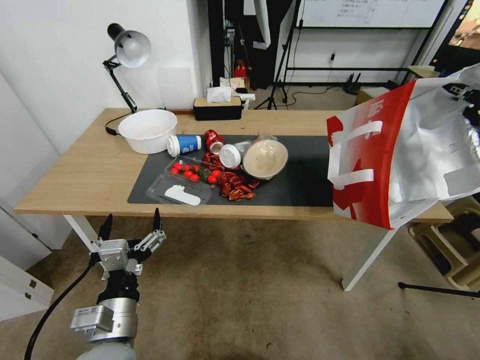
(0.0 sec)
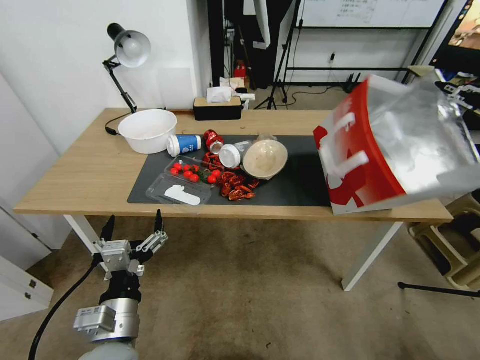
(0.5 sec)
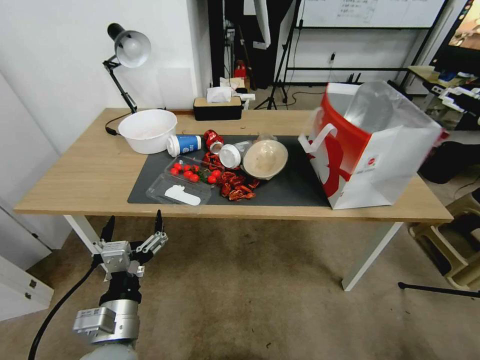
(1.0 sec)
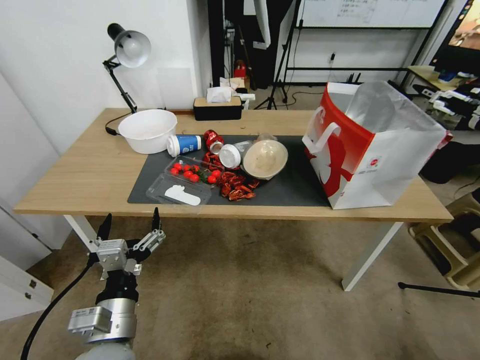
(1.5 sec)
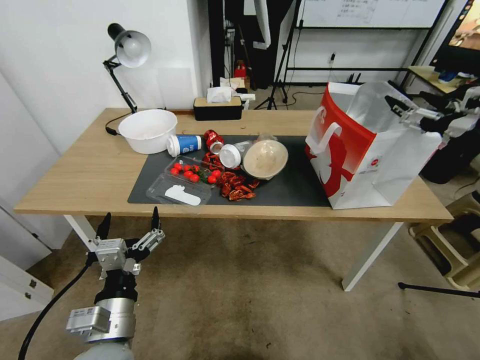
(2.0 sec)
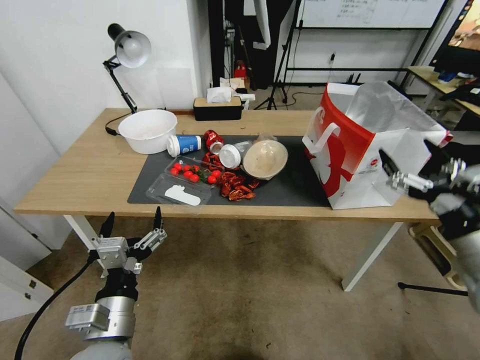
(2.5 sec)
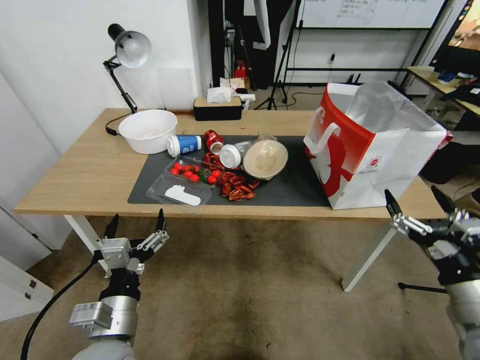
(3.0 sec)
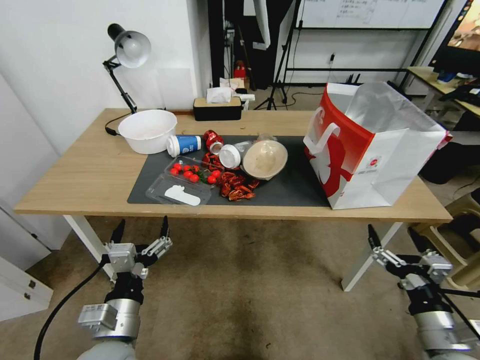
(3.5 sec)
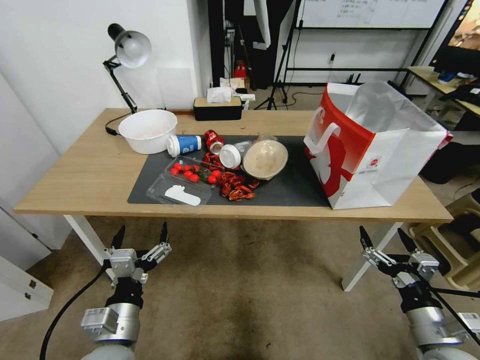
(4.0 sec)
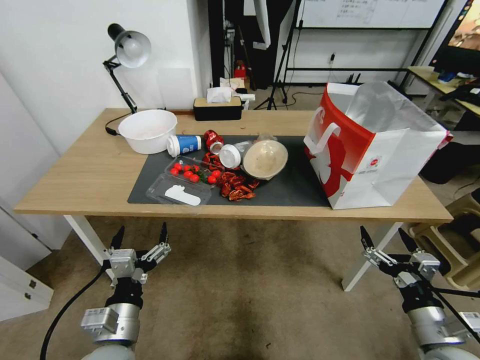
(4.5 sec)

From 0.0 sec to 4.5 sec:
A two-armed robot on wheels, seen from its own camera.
Task of the whole recording: Pick up the food delivery bag from the floor and place it on the table.
From 0.0 sec to 2.0 sec: The right gripper travels to the left and downward by roughly 10 cm, and opens up.
From 2.0 sec to 4.5 sec: The right gripper heads downward and backward, covering roughly 30 cm.

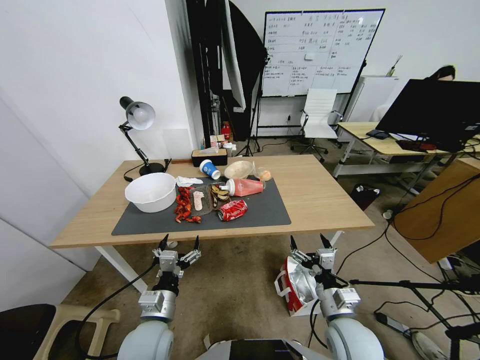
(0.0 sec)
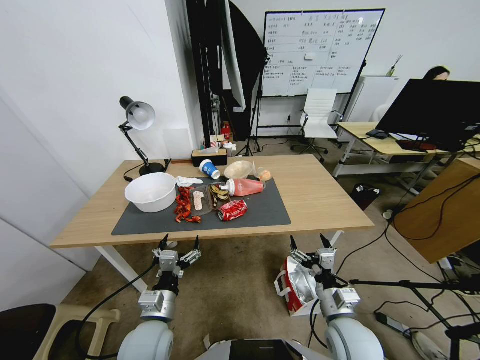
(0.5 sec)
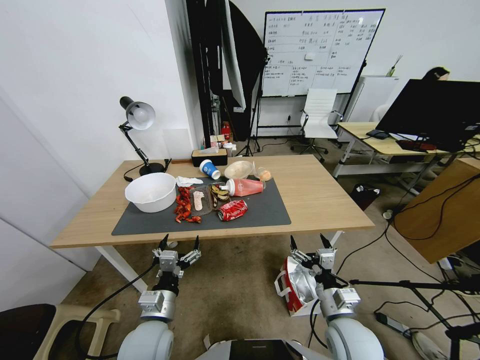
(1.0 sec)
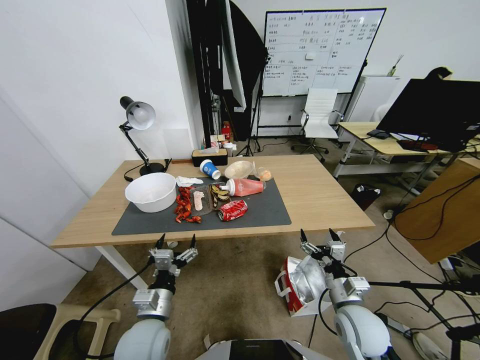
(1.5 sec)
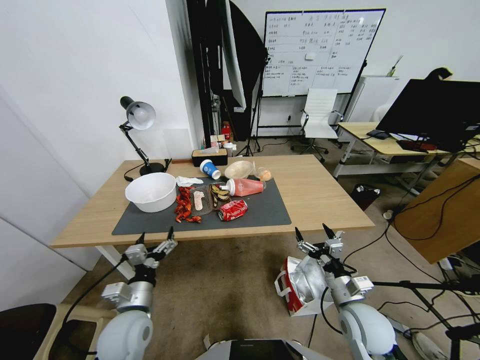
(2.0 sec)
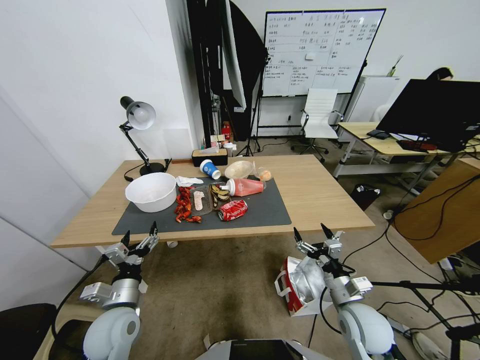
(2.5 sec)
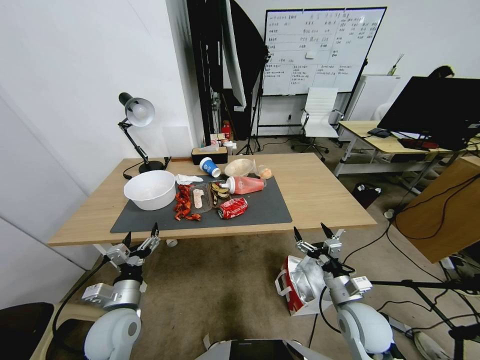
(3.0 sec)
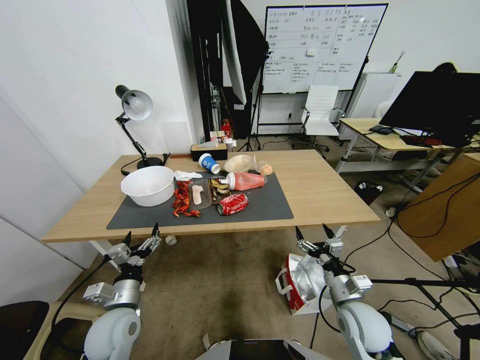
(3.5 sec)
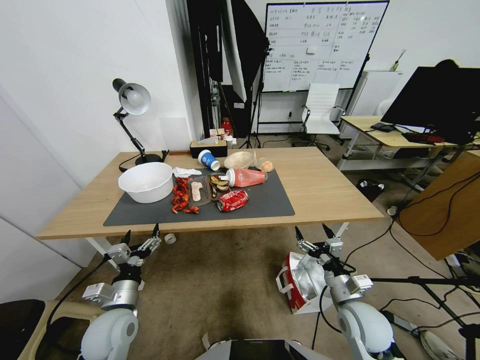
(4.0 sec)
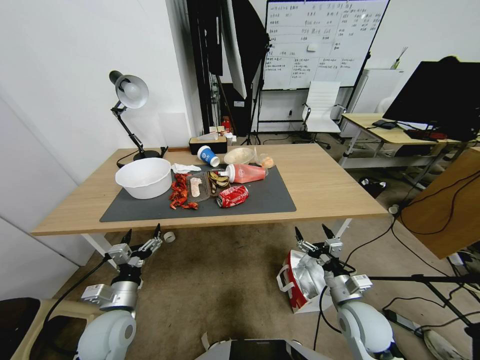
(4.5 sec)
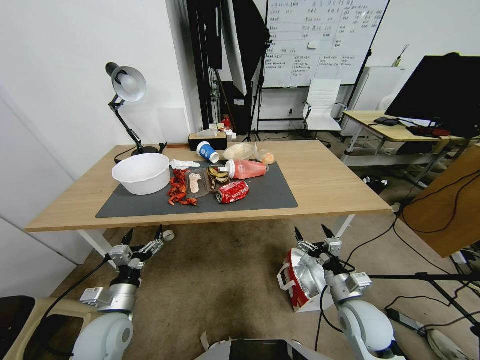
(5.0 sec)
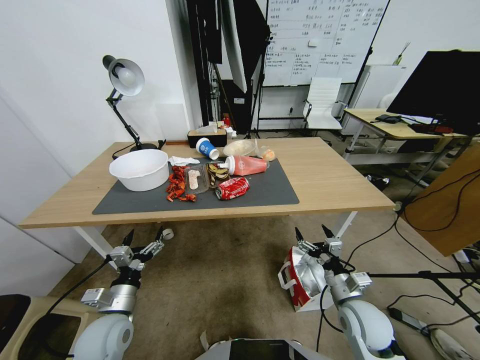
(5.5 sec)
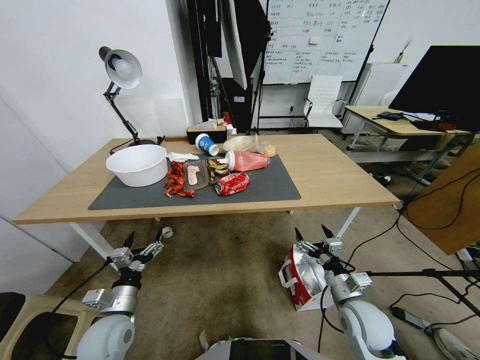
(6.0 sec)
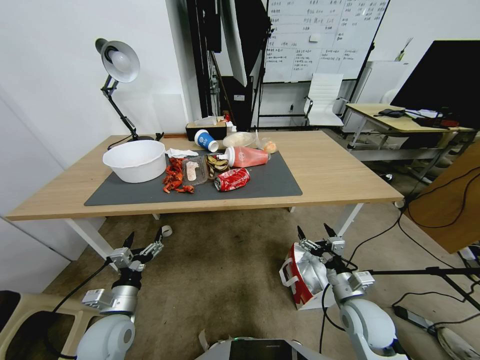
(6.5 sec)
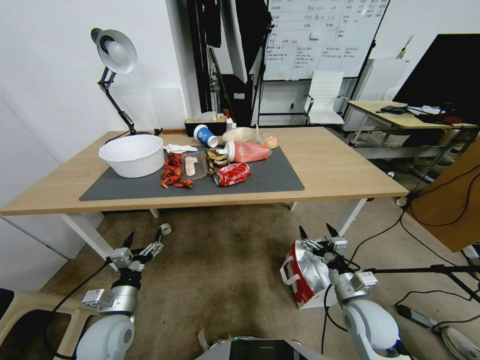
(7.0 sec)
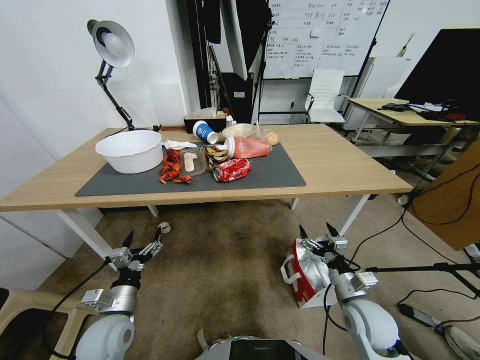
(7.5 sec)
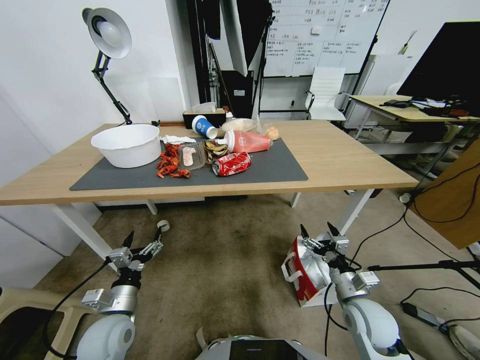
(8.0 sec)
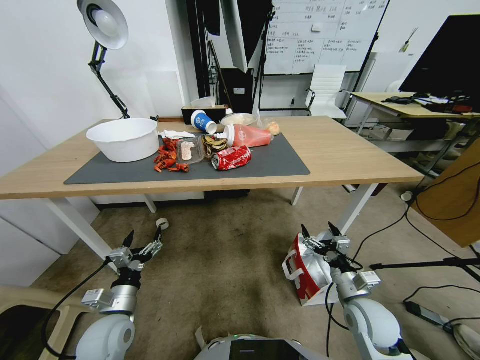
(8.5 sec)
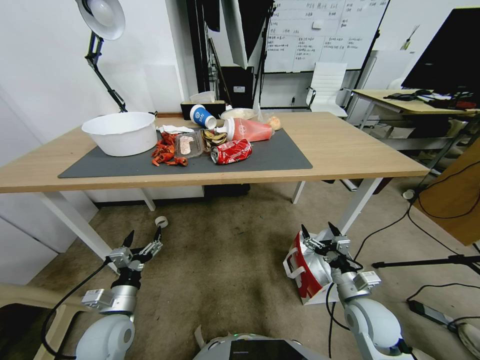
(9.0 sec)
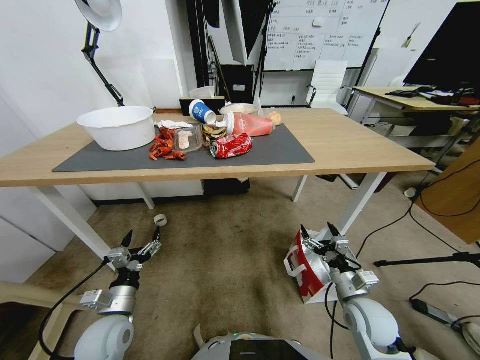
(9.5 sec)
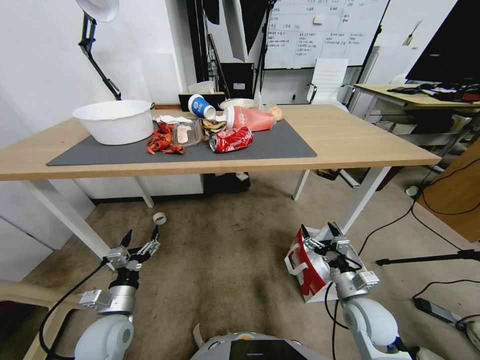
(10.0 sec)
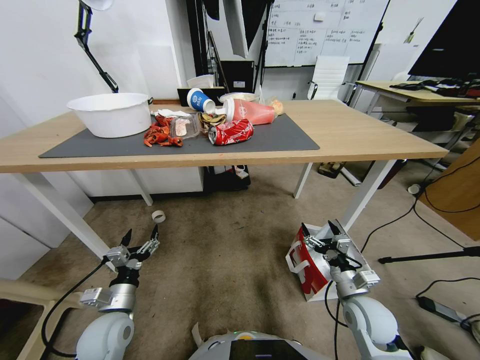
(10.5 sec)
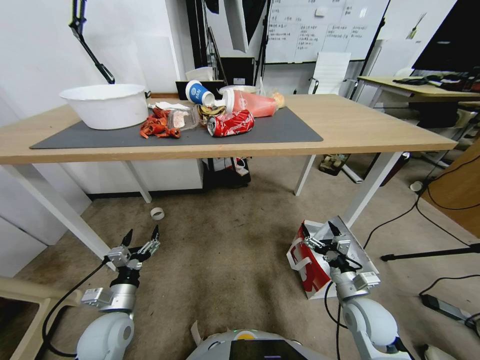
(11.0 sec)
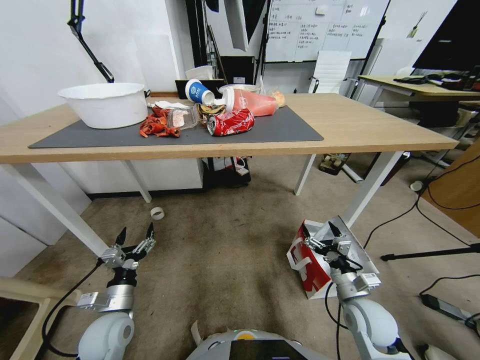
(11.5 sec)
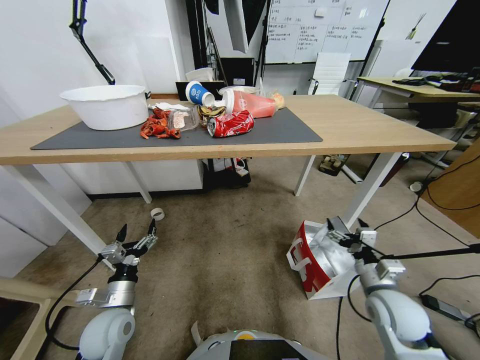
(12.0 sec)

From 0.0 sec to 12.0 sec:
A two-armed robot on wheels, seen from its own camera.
Task of the whole recording: Pick up the food delivery bag from the floor and place it on the table.
From 10.0 sec to 12.0 sec: The right gripper shifts approximately 5 cm to the right.

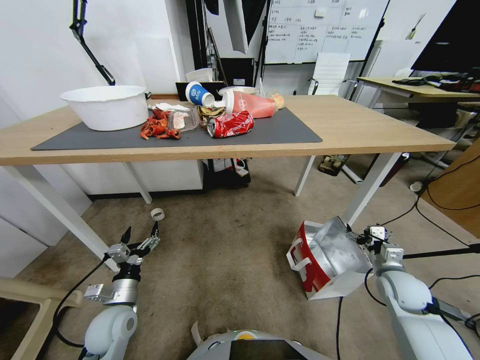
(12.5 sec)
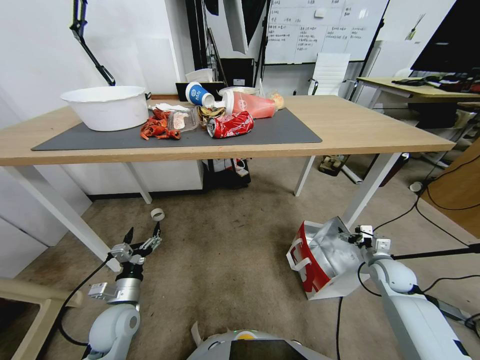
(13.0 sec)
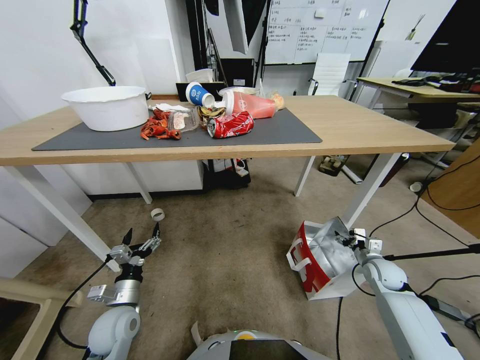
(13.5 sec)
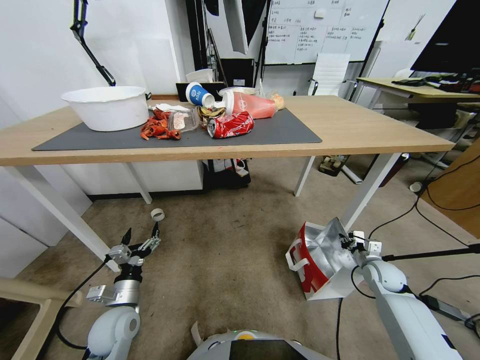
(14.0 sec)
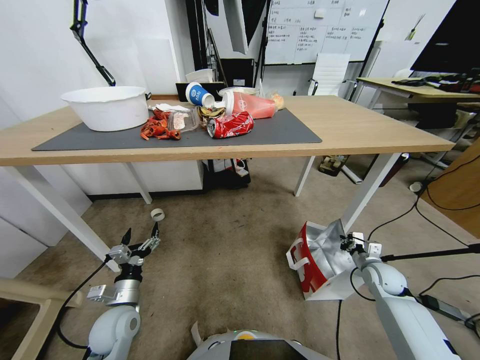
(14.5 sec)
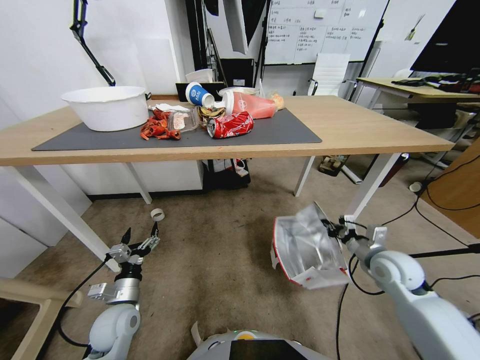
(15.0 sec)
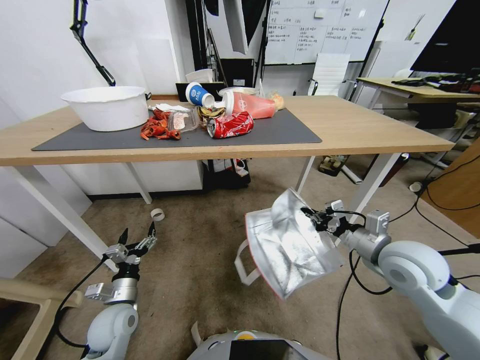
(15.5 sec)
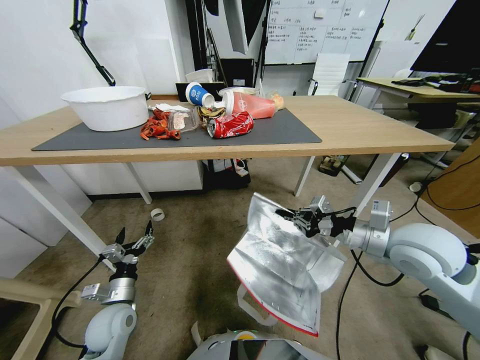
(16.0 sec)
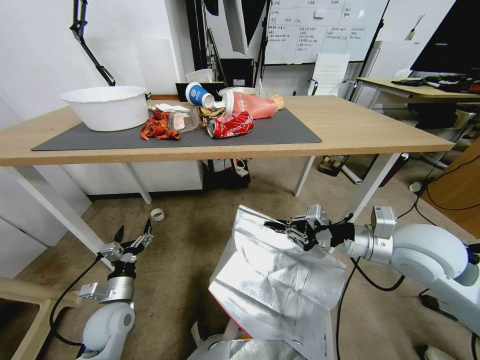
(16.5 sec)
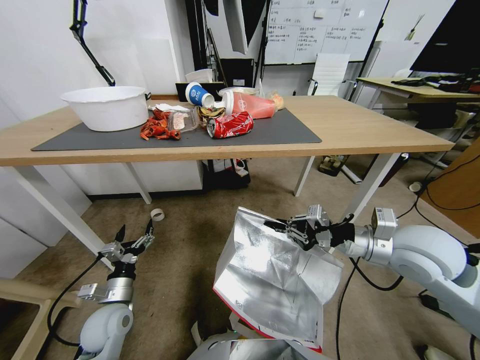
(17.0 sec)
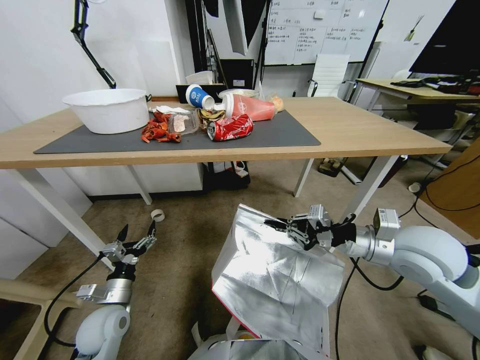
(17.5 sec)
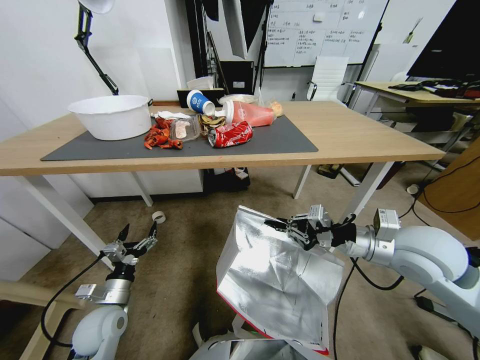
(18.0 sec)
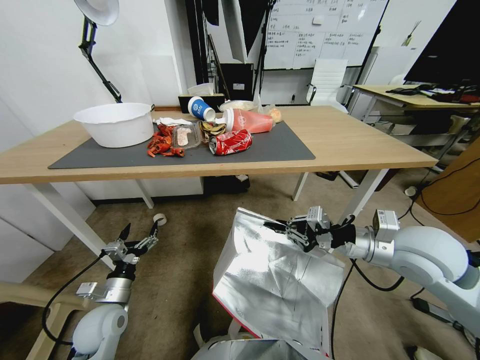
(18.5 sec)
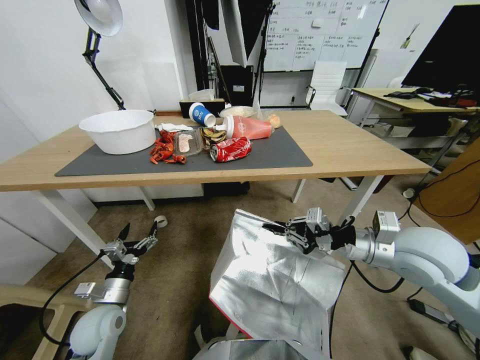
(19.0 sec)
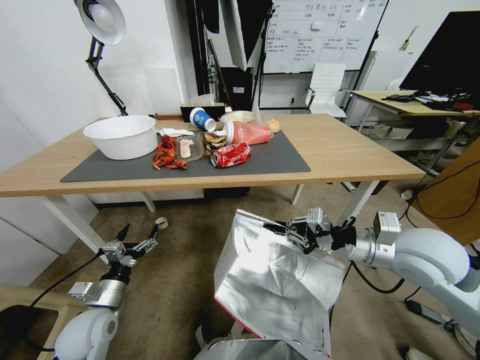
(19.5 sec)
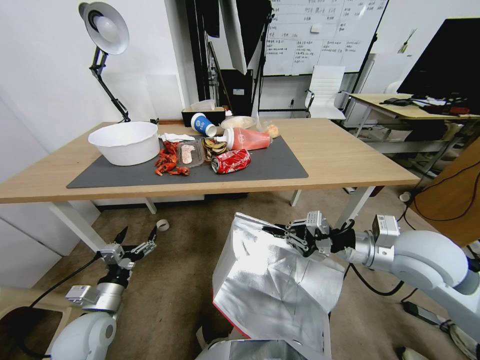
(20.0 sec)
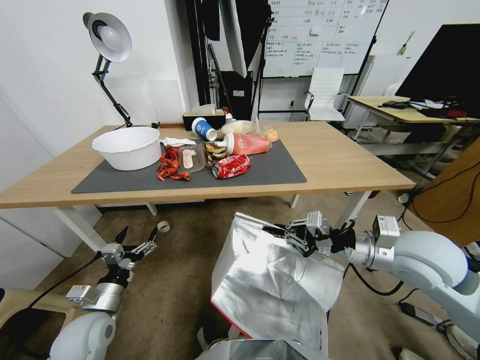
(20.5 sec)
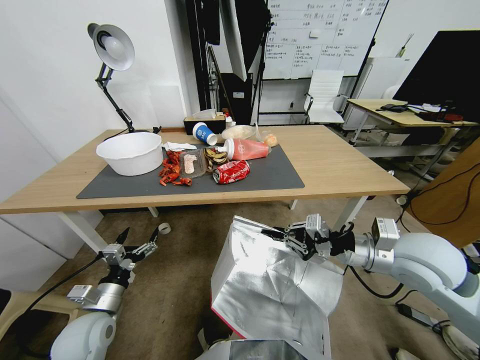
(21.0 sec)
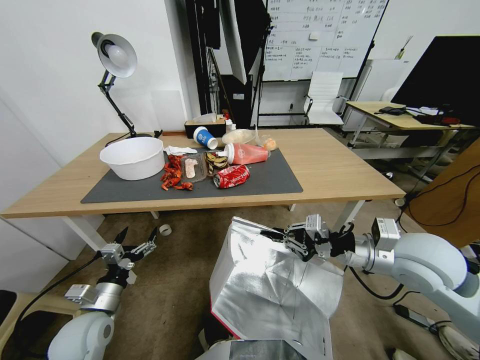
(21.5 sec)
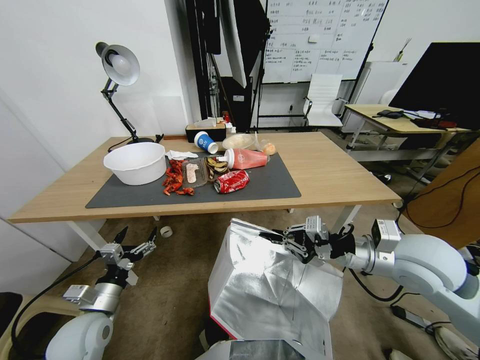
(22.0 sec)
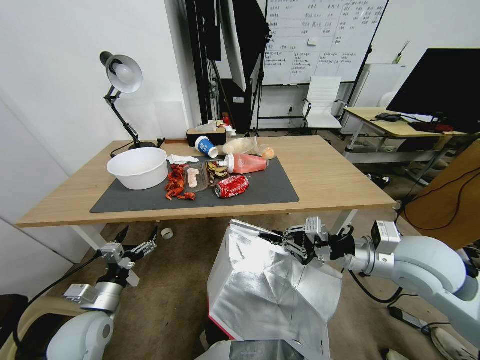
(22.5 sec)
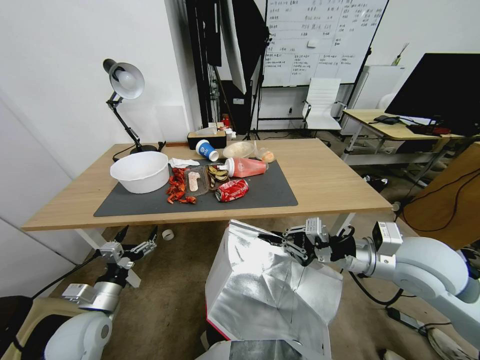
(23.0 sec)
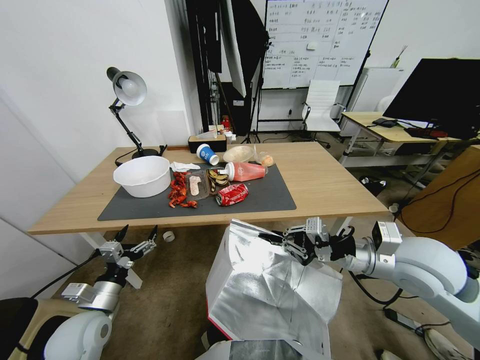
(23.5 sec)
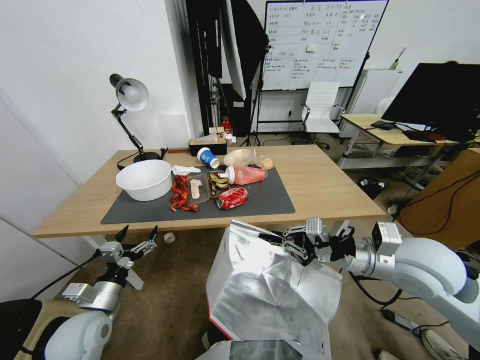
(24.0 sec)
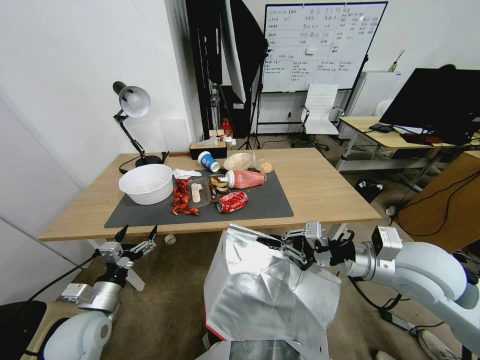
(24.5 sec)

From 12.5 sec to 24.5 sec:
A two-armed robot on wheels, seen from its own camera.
Task of the whole recording: Pick up the food delivery bag from the floor and place it on the table.
From 12.5 sec to 14.5 sec: The right gripper closes up.
From 14.5 sec to 16.5 sec: The right gripper heads upward and to the left, covering about 25 cm.
